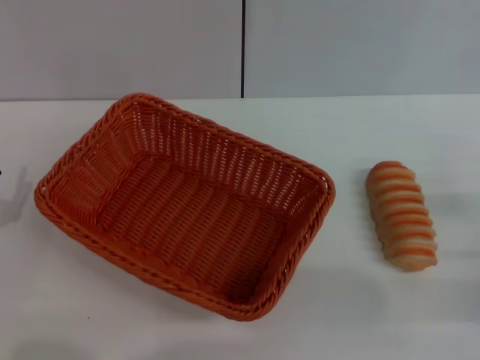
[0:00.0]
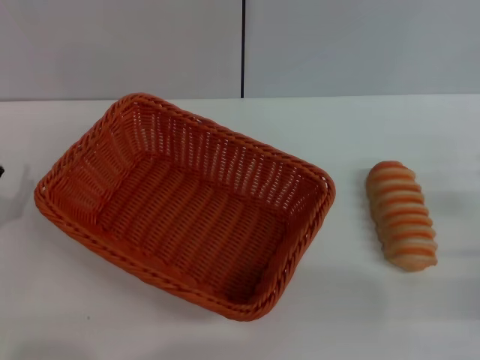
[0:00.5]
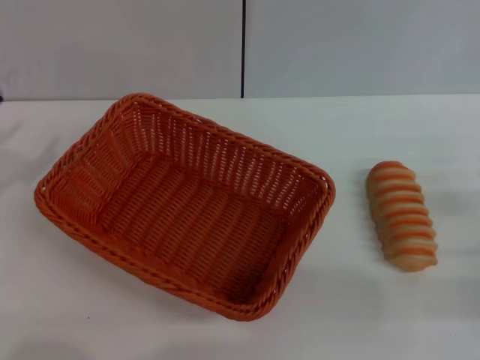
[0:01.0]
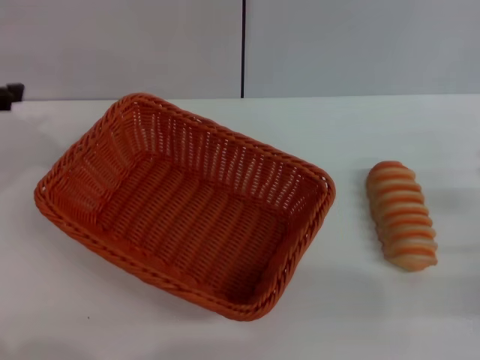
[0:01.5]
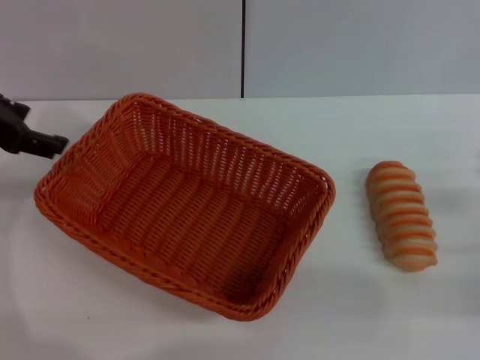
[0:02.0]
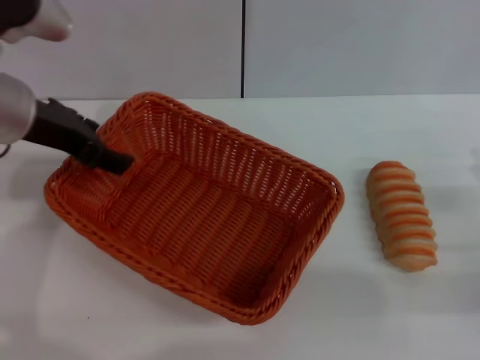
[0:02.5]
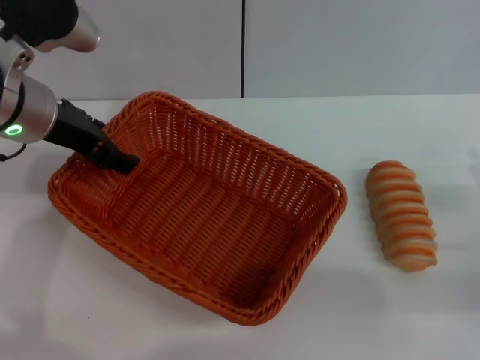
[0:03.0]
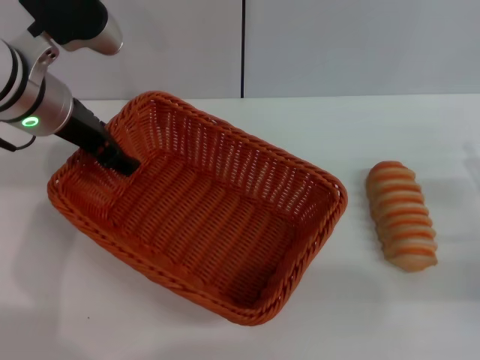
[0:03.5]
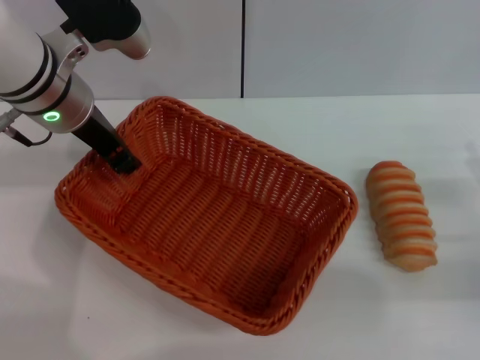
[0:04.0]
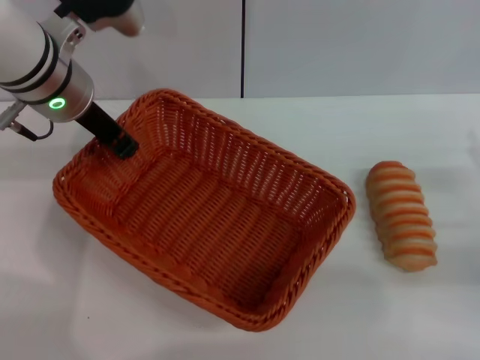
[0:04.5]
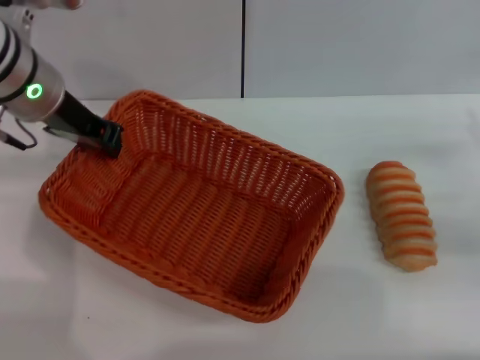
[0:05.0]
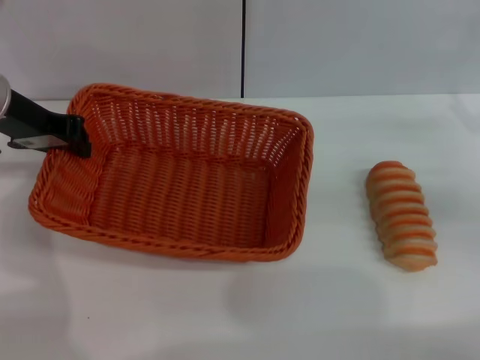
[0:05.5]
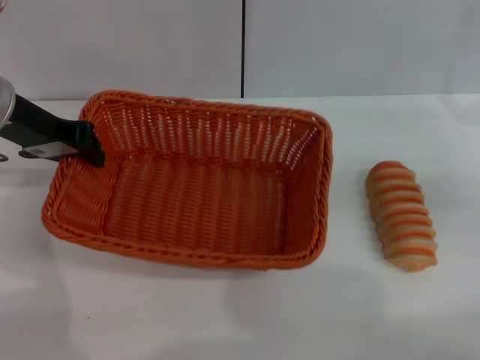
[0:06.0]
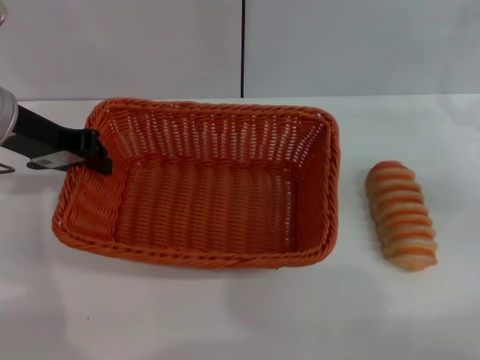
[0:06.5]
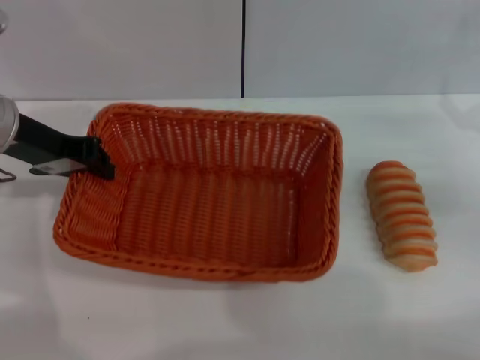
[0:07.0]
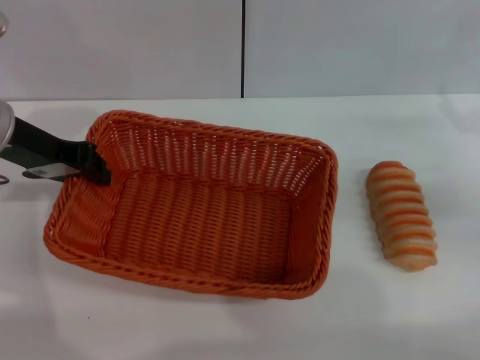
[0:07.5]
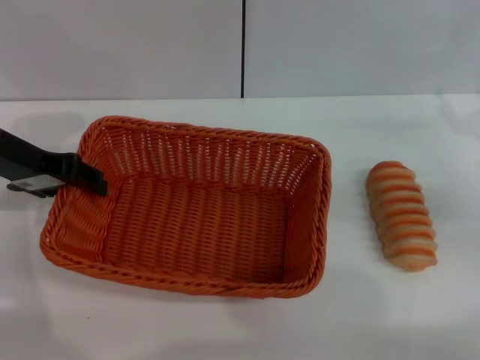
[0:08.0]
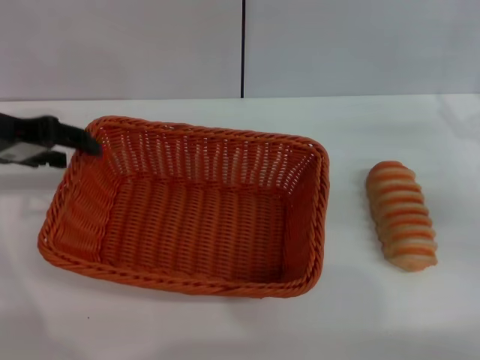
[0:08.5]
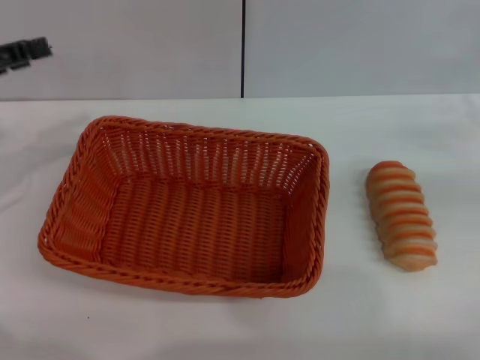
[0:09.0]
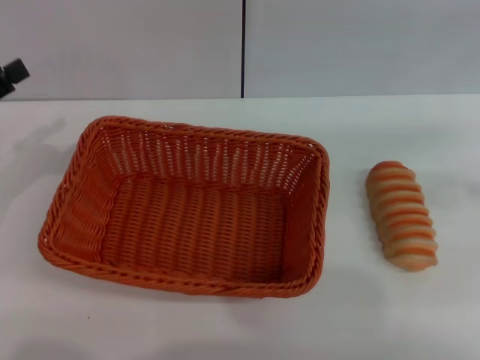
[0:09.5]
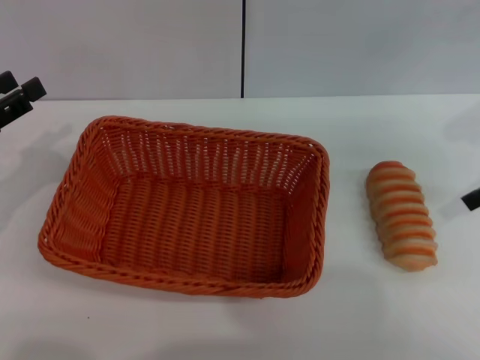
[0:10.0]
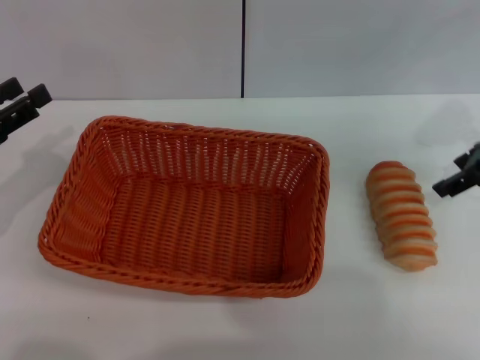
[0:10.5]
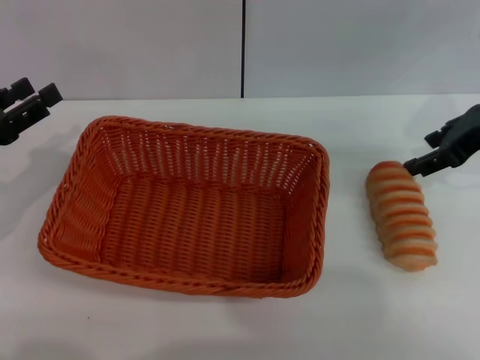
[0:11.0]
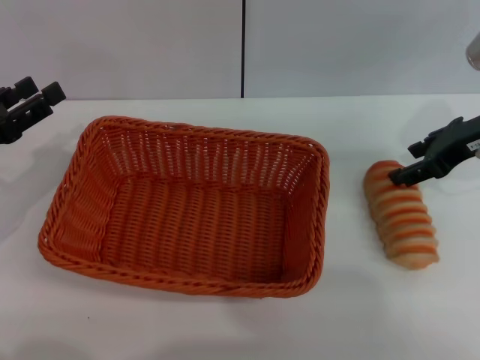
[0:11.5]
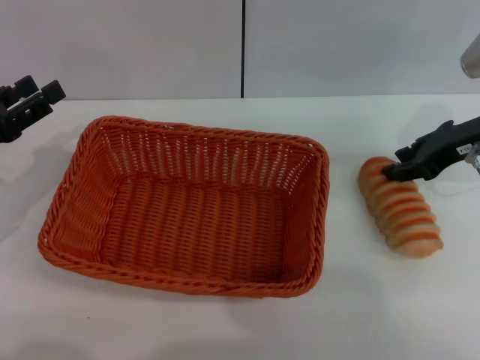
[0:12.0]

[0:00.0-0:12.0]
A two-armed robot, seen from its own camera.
Step, 0:00.0 to 0:05.5: Pick up the light basket with the left gripper.
Step, 0:06.0 to 0:08.5: Place the light basket in the center of view with the left gripper.
0:00.0 to 0:02.0: The left gripper heads upward and forward, covering some 25 cm.
0:02.0 to 0:04.0: The left gripper is displaced to the right, forward and downward by some 15 cm, and closes its fingers.
0:04.0 to 0:06.0: The left gripper heads to the left, covering some 10 cm, and closes. Meanwhile the right gripper moves forward and upward, about 10 cm.
0:06.0 to 0:08.0: The left gripper opens its fingers.
0:08.0 to 0:10.0: The right gripper travels upward by roughly 10 cm. The left gripper heads to the left, backward and downward, covering about 10 cm.
0:10.0 to 0:12.0: The right gripper heads downward, covering approximately 5 cm.

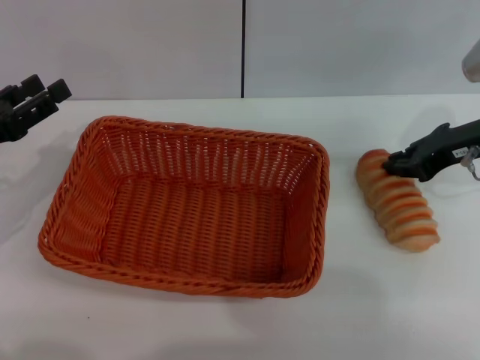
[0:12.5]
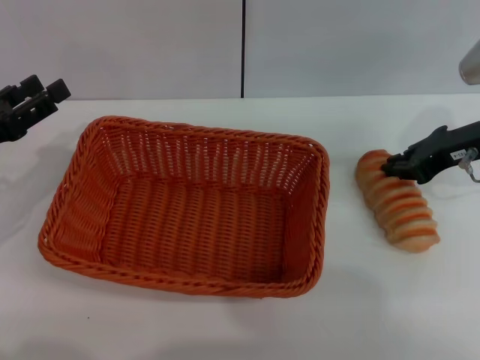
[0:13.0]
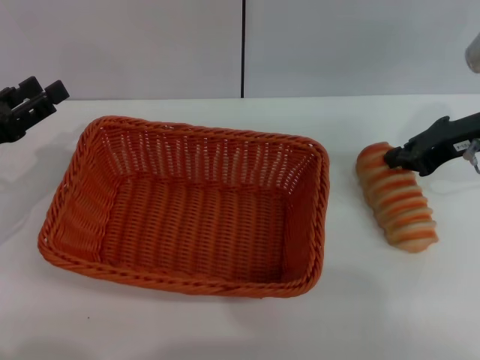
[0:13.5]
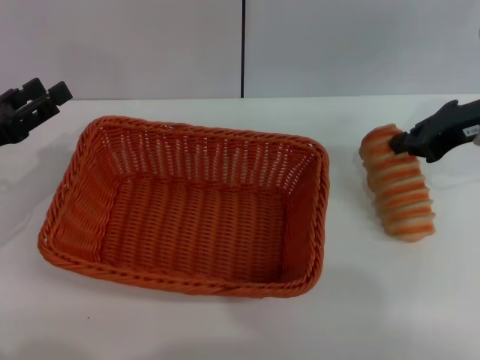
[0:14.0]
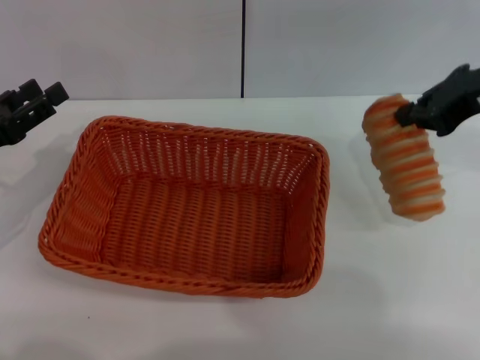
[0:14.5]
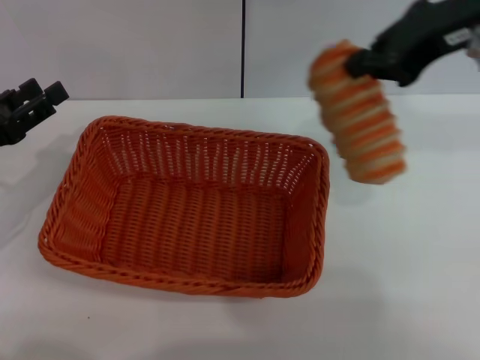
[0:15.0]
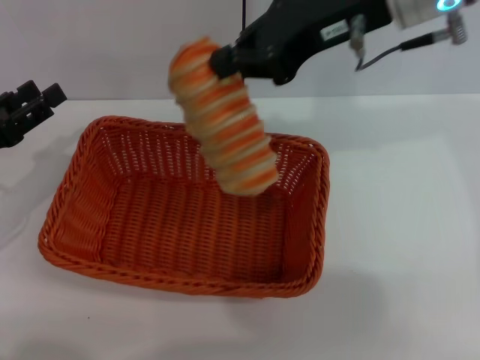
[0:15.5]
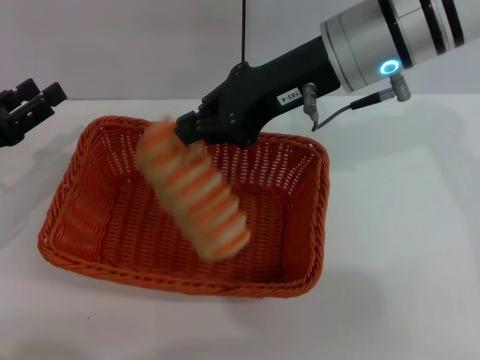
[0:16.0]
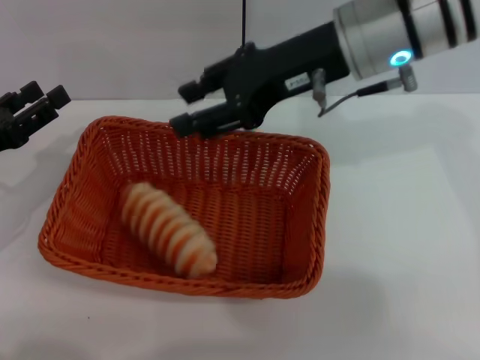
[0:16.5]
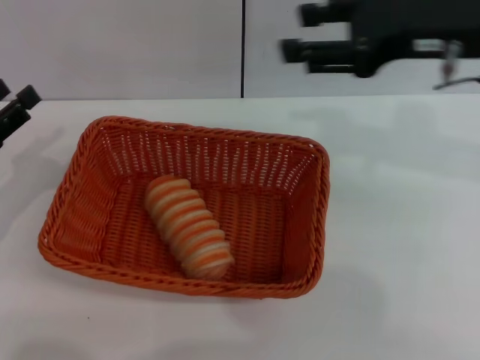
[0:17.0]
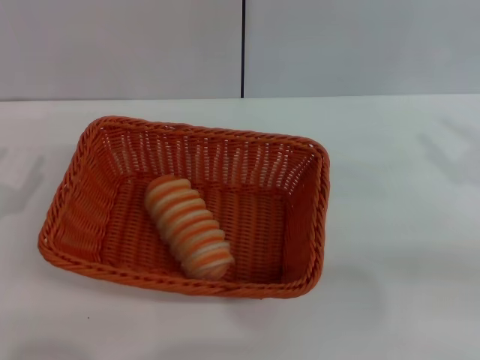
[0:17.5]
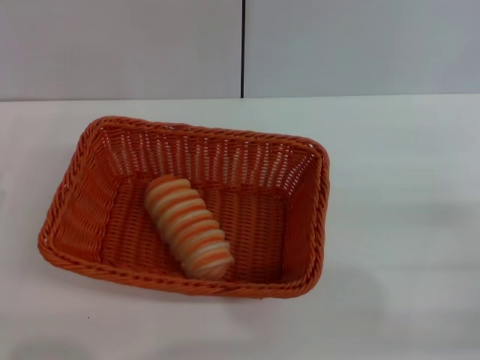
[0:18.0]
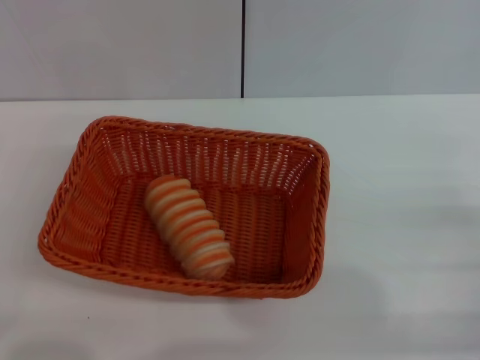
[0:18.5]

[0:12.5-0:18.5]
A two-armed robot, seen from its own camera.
Step, 0:12.5 to 0:14.5: Pick up the long bread with the right gripper.
Step, 0:15.0 to 0:16.5: Place the long bread into the light basket with the right gripper.
0:12.5 to 0:14.5: The right gripper moves upward, approximately 10 cm.
0:14.5 to 0:16.5: The right gripper heads to the left, covering about 15 cm, and opens its fingers.
0:16.5 to 0:18.5: The right gripper goes about 35 cm to the right, downward and backward. The left gripper shifts roughly 15 cm backward and downward.
